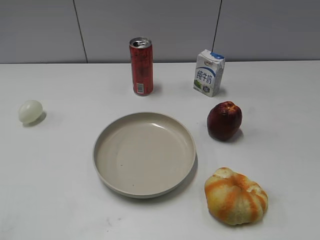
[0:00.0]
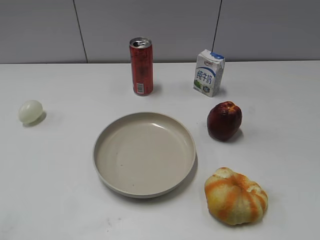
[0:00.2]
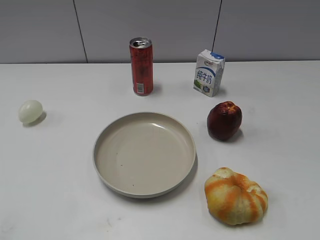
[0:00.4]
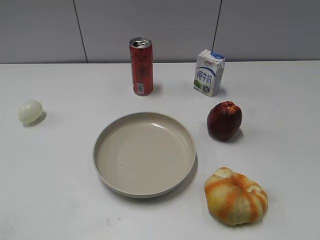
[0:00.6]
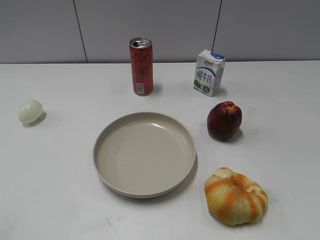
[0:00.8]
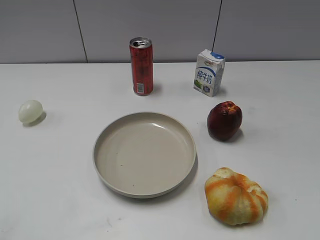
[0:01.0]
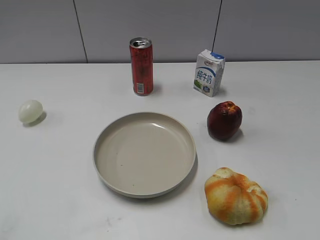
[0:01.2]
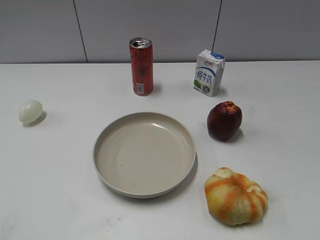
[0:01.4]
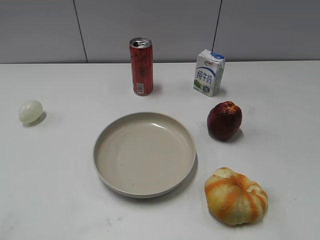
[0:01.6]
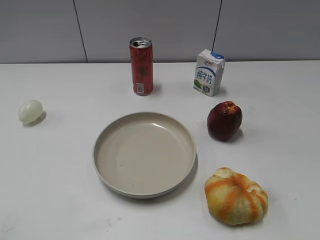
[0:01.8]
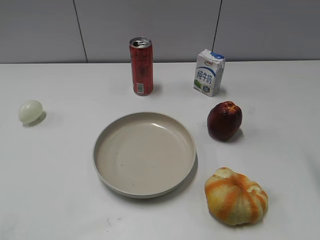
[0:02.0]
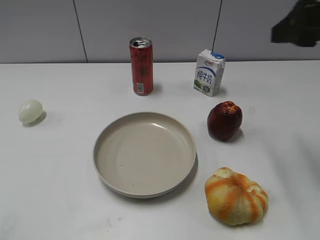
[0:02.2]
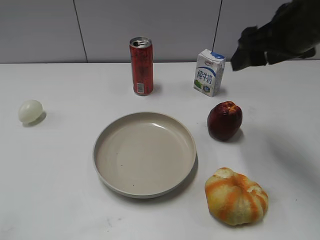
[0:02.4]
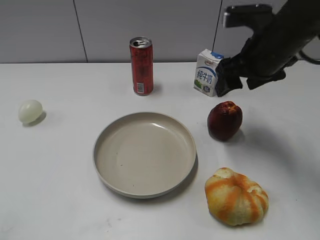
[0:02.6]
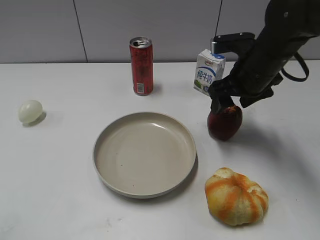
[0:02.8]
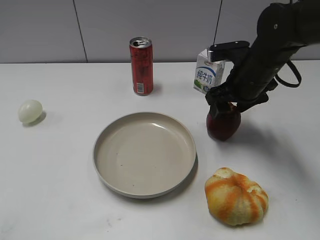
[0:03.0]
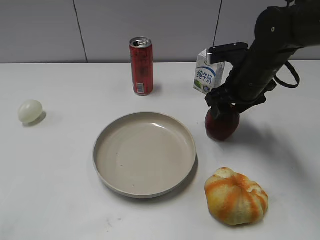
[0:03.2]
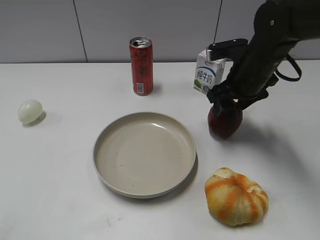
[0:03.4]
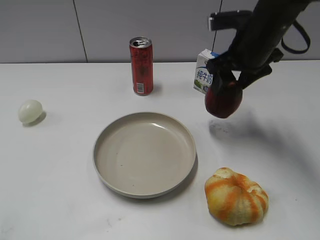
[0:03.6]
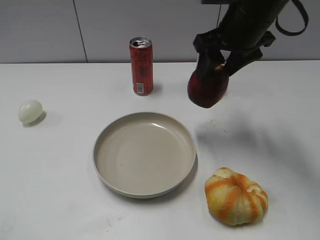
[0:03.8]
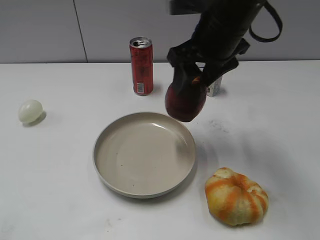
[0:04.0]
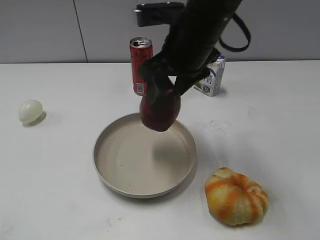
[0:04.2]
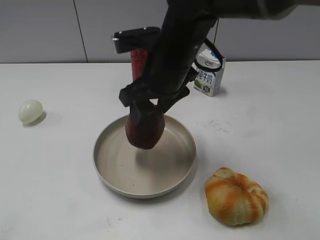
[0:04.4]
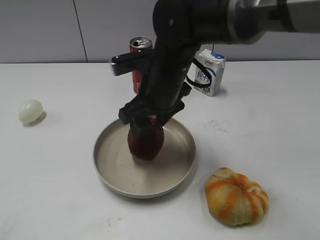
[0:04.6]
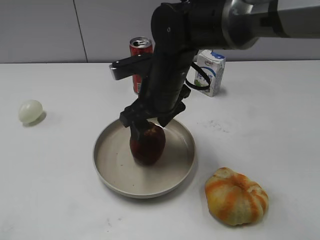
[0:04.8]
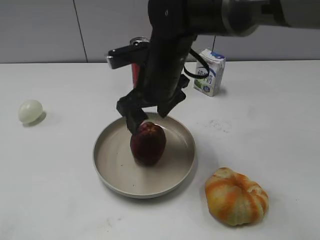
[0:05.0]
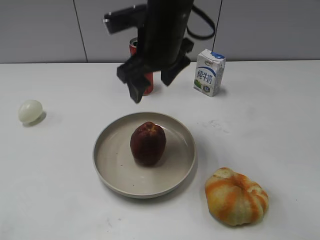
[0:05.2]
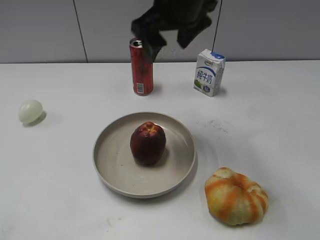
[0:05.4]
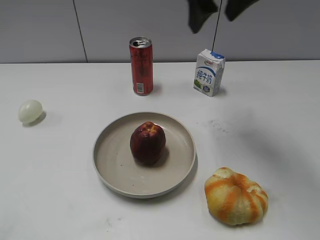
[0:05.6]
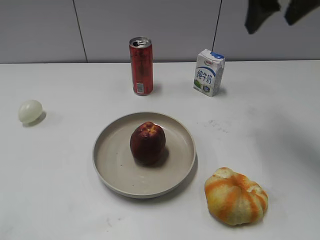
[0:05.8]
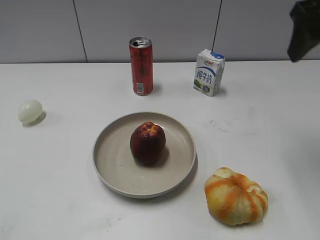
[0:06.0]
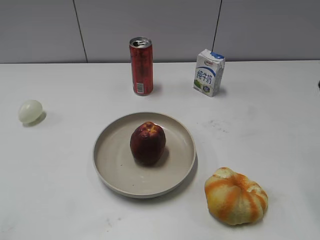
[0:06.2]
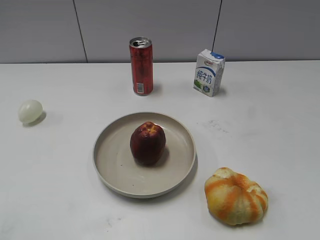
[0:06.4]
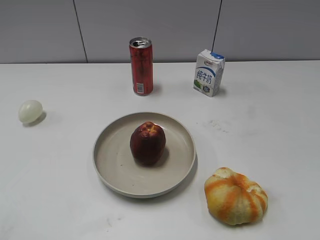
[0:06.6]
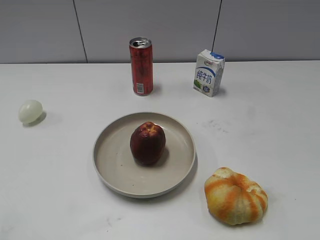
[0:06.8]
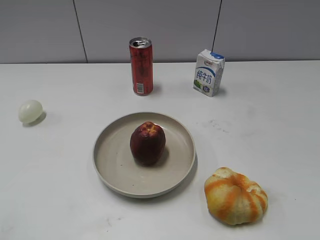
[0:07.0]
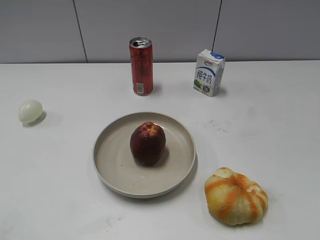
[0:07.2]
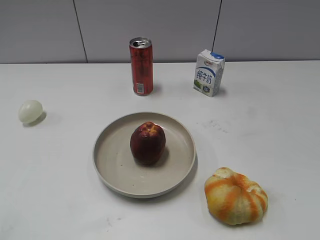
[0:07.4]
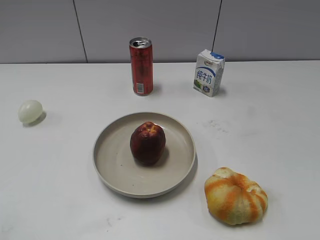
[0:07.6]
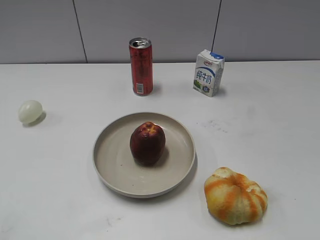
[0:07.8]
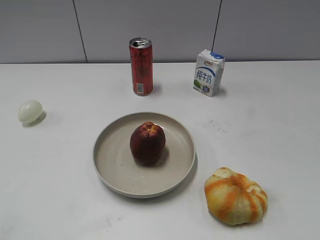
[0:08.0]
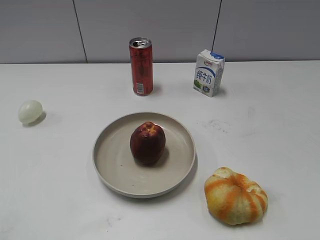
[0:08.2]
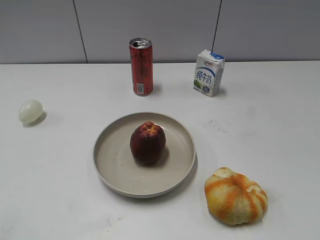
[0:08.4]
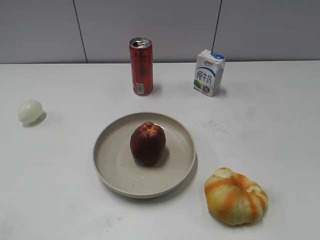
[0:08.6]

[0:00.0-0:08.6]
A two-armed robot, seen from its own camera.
Step, 0:01.0 to 0:03.2: Grasp the apple with right gripper.
Step, 0:03.4 to 0:05.0: Place the apple on the plate with right gripper.
0:01.4 to 0:02.8: The right gripper moves forward, approximately 35 cm.
0:02.8 to 0:04.4: The right gripper moves to the left, approximately 15 cm, and closes.
0:04.4 to 0:05.8: The right gripper goes approximately 25 cm to the right and upward, and opens.
0:05.8 to 0:07.2: The right gripper travels backward by about 30 cm, and closes.
